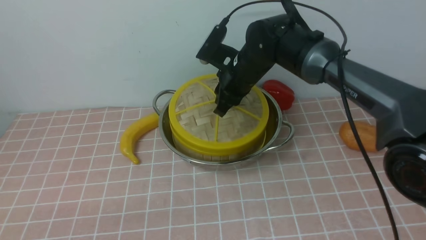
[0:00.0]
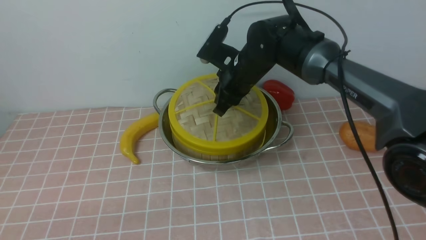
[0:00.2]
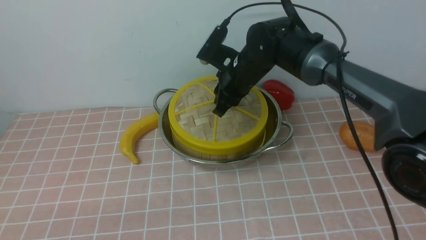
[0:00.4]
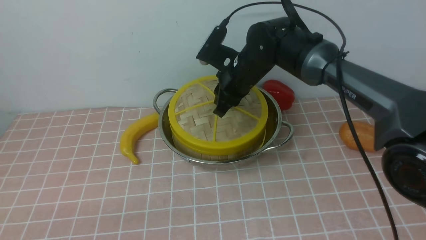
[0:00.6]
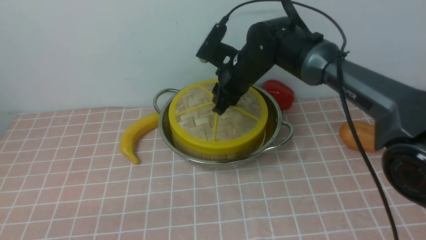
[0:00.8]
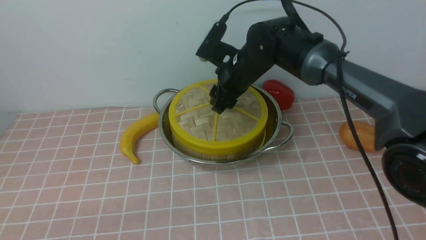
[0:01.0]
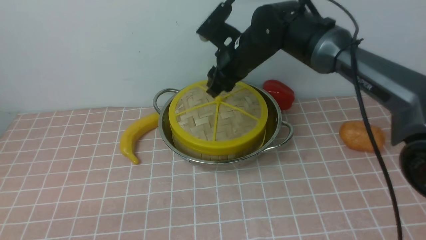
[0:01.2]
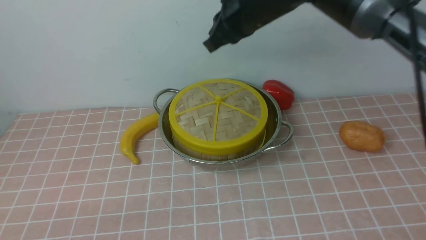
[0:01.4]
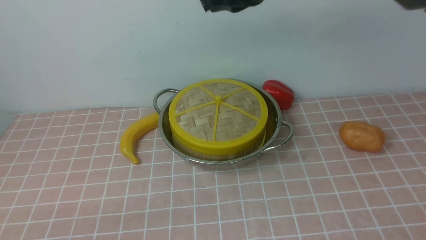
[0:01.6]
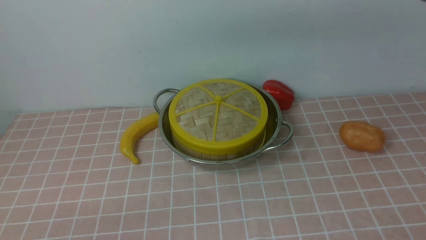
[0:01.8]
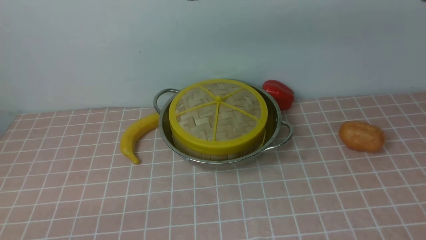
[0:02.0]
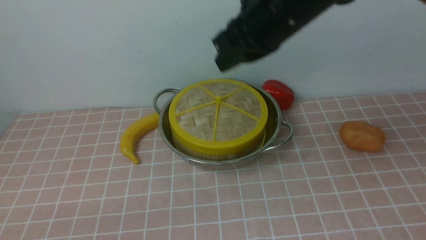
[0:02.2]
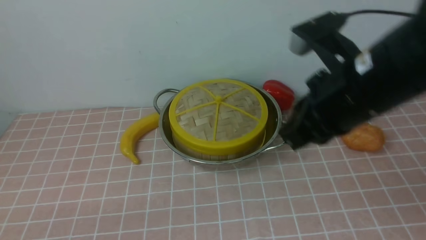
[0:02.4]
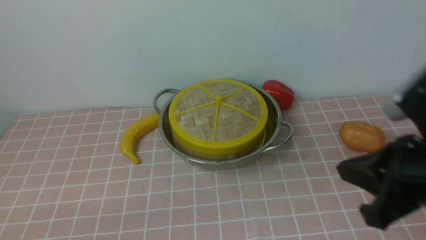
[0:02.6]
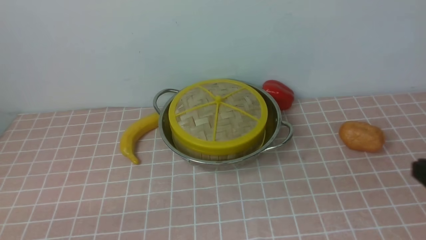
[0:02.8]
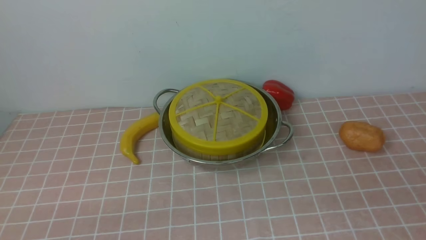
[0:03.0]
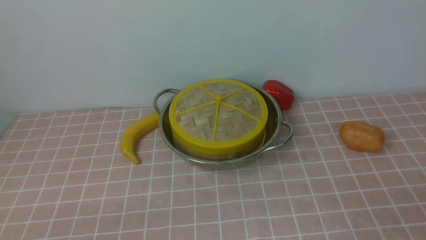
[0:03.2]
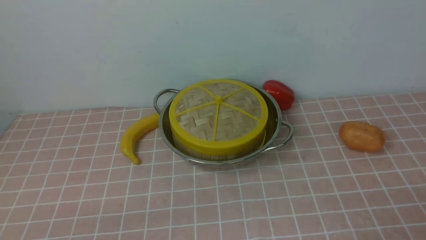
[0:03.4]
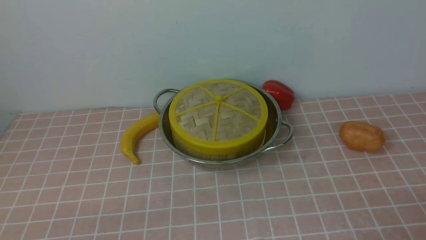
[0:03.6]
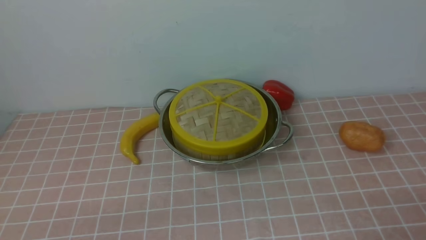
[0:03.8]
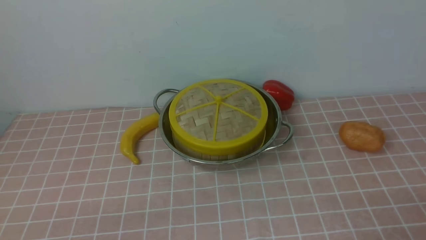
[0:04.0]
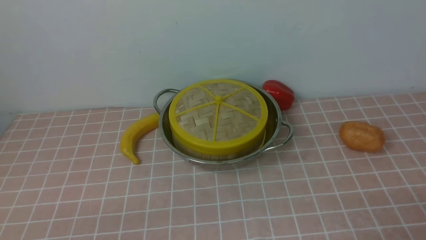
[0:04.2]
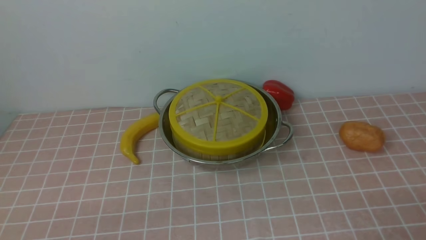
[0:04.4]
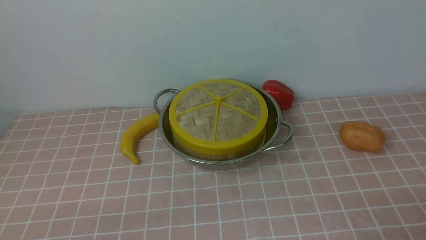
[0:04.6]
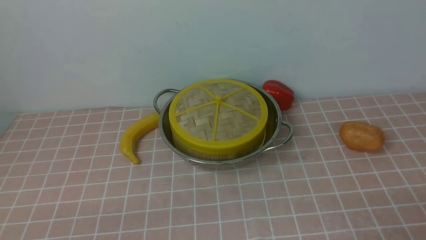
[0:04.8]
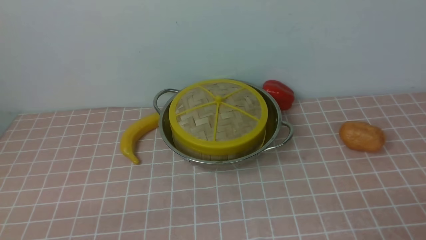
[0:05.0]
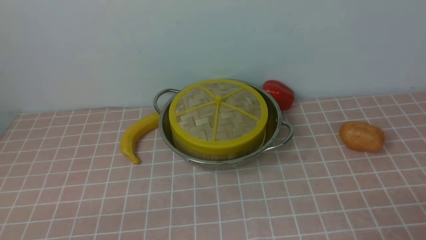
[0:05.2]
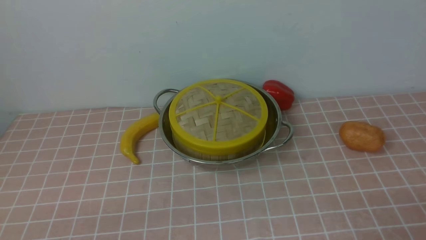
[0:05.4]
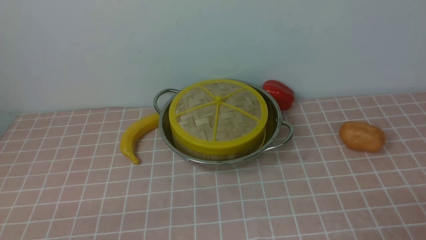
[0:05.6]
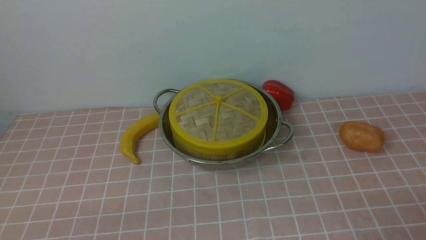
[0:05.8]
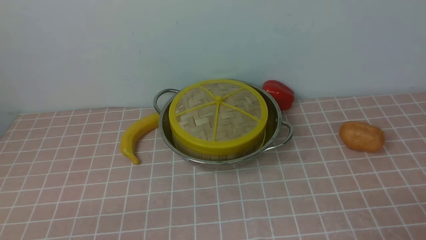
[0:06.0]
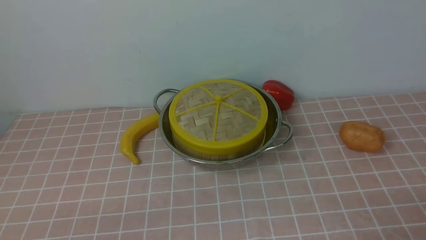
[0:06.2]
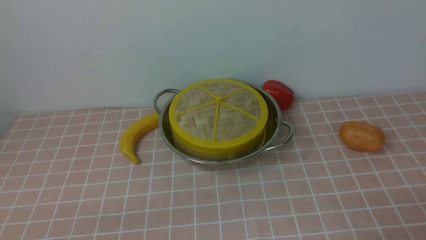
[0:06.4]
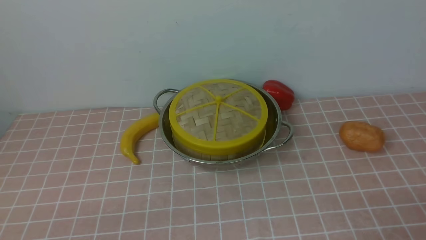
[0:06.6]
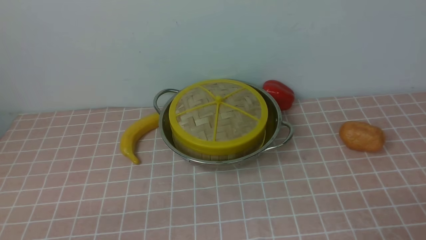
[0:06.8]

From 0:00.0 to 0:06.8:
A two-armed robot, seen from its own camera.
Task of the whole recording: place the steamer in the pot on the pink tablecloth, and put the lid on the steamer.
From 0:00.0 to 0:01.4: The right gripper shifts approximately 15 cm upward, and closes up.
From 0:01.4 to 0:02.8: The right gripper travels backward and to the right by roughly 35 cm.
From 0:02.8 to 0:04.0: The right gripper moves downward and backward, about 10 cm, and opens up.
From 0:04.0 to 0:06.8: Both grippers stay about where they are.
